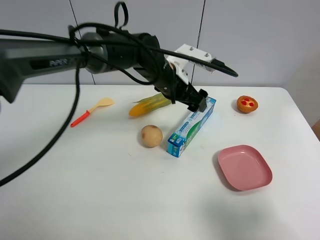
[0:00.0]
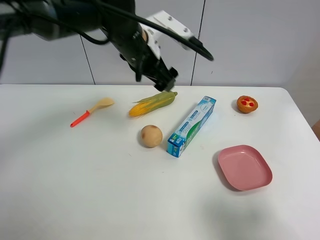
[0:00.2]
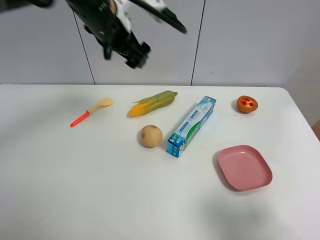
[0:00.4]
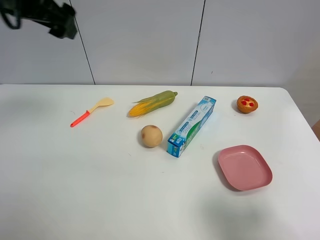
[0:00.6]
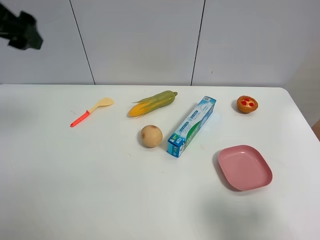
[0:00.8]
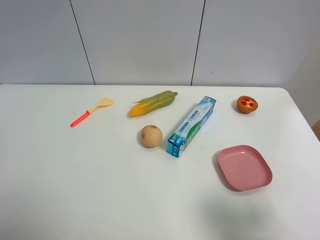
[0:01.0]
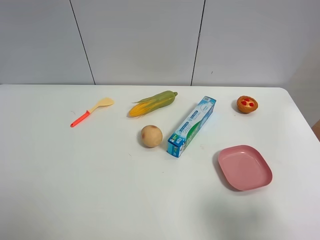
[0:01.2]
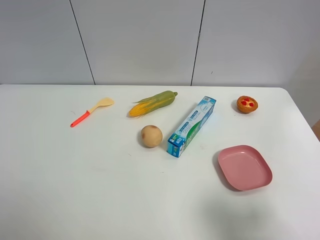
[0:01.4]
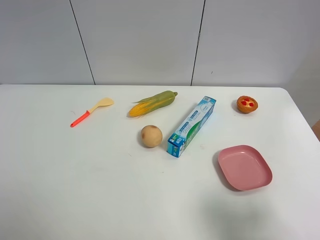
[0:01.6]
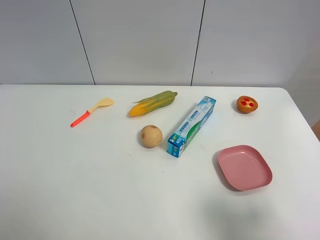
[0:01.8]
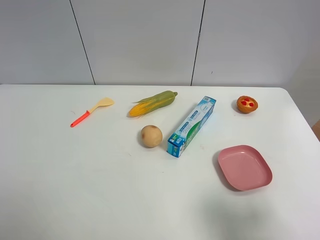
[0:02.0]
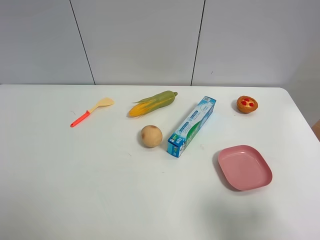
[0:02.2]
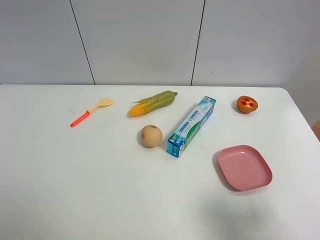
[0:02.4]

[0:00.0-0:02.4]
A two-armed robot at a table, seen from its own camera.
Task of the whole recording: the gripper move the object.
0:00.0 to 0:01.2: The left gripper moves to the left, backward and upward, roughly 50 cm.

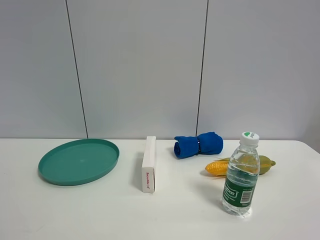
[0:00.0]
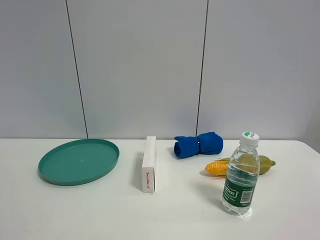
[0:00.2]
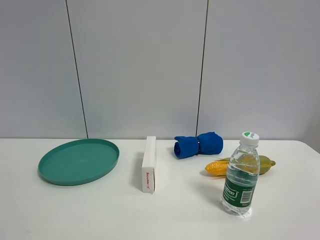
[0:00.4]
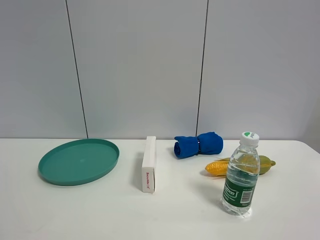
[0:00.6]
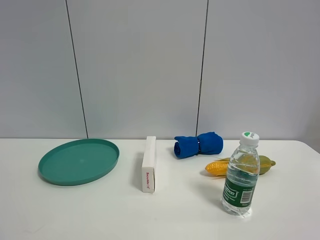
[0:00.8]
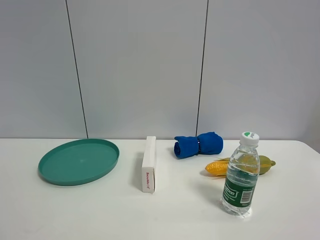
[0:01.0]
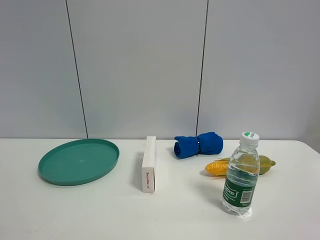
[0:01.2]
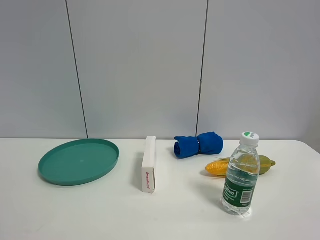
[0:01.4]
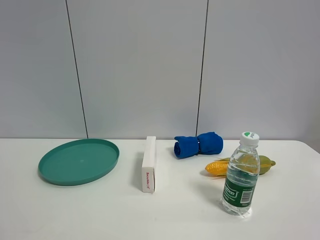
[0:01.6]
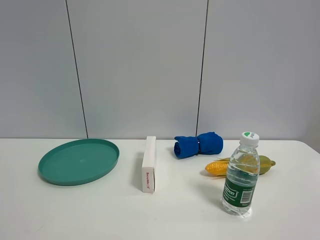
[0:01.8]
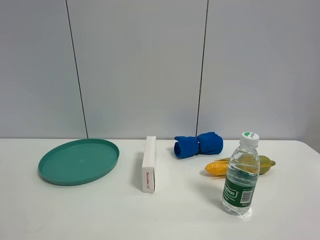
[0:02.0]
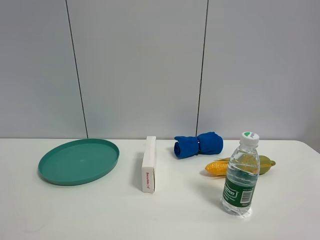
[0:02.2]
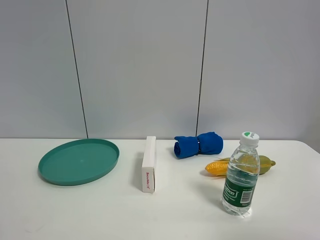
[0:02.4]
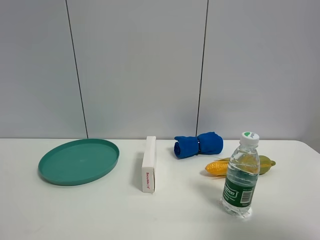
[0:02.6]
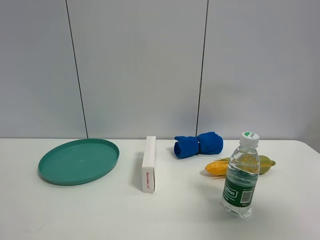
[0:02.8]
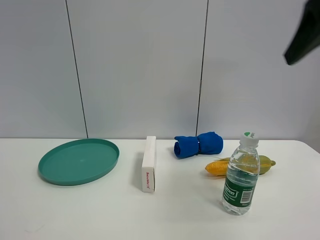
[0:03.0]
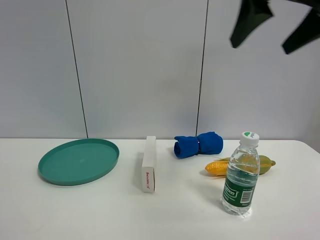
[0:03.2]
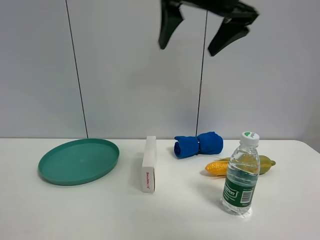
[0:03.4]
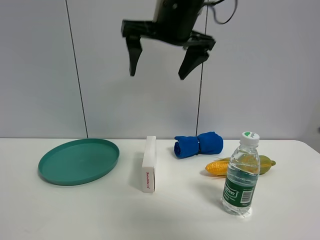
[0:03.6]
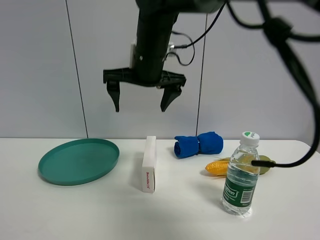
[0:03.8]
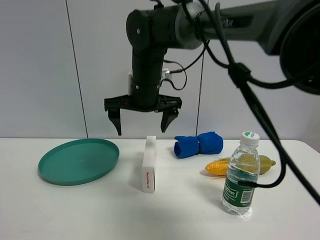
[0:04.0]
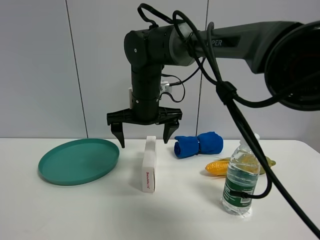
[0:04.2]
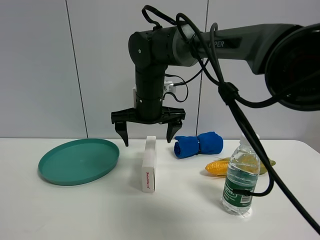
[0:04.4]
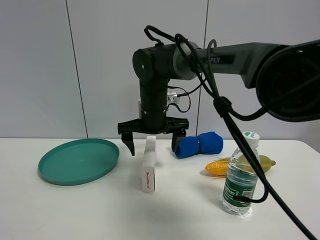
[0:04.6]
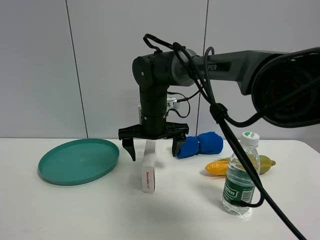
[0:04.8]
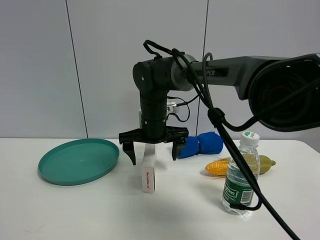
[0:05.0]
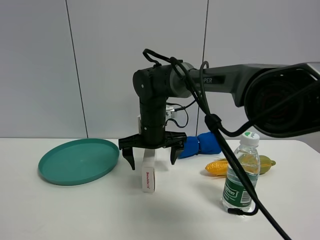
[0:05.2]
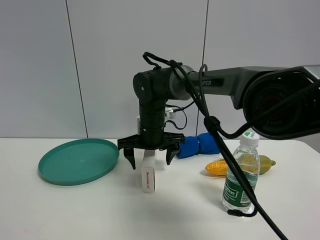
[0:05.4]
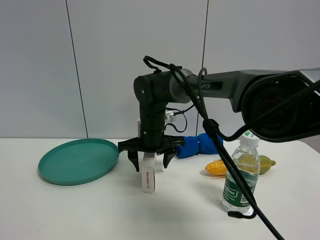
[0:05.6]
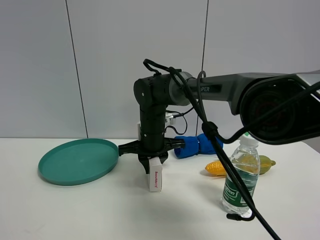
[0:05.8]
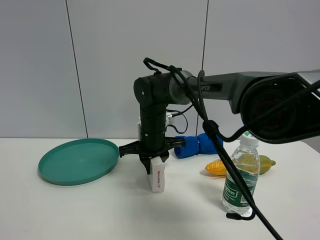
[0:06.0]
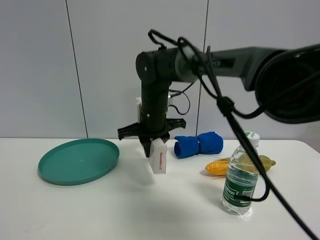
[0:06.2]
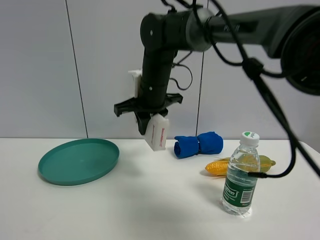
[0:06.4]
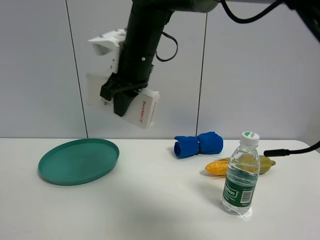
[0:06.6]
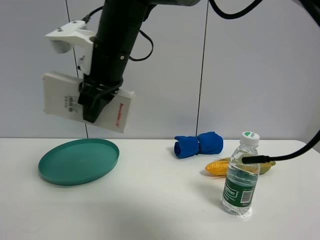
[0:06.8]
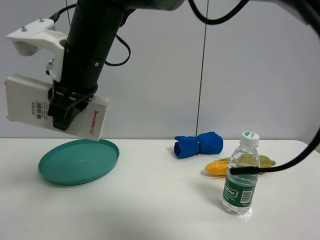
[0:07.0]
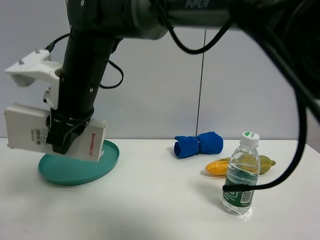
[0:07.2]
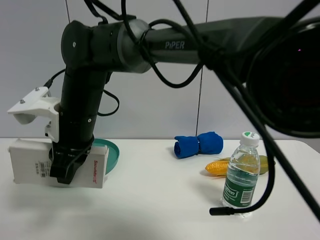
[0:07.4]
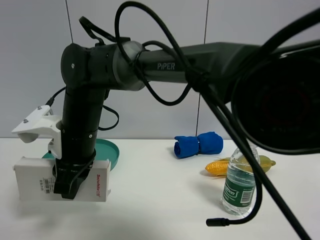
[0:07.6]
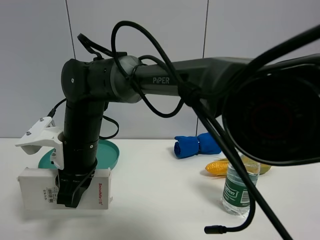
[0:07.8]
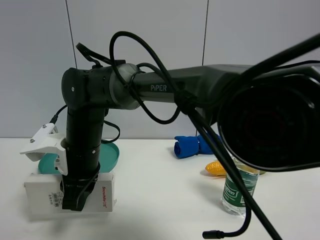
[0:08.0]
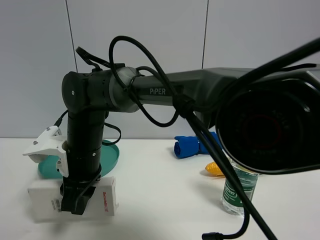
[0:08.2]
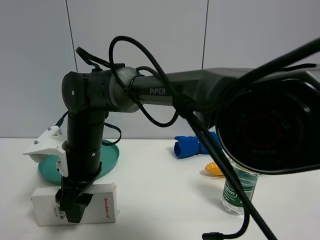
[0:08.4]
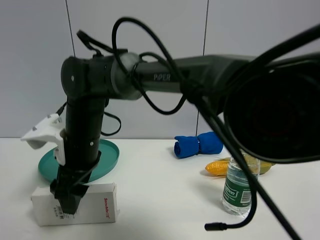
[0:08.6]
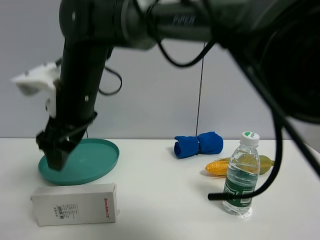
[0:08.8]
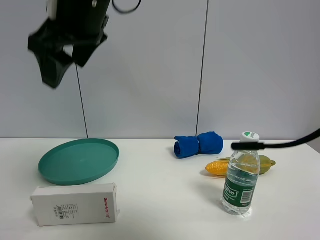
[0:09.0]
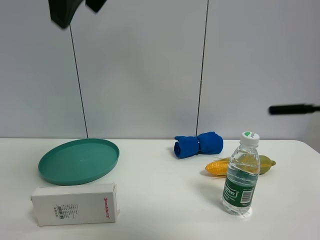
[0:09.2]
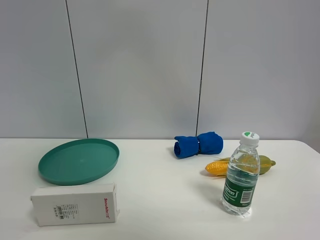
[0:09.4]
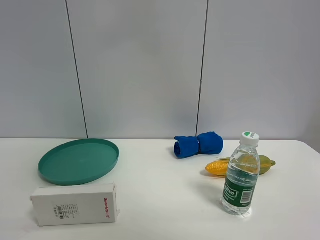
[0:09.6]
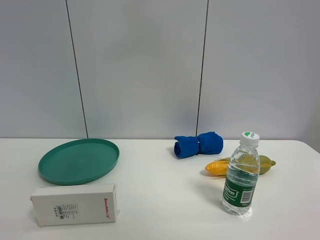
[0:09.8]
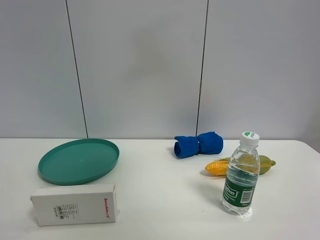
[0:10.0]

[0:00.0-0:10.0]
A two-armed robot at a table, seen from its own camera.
Task of the whole recording: the gripper move the object.
Step, 0:00.0 to 0:05.6: Grasp the USB box with the right gripper.
Step, 0:05.8 to 0:08.6: Place the USB box on the table with the right gripper.
0:00.0 to 0:01.4: Neither gripper changes place.
0:01.4 to 0:02.8: The right gripper travels forward and upward by about 20 cm.
0:02.8 to 0:04.2: The right gripper moves to the left, forward and downward, roughly 40 cm.
0:04.2 to 0:05.8: The right gripper moves downward, about 10 cm, and closes up.
0:05.8 to 0:07.2: The right gripper goes approximately 20 cm backward, upward and to the left.
0:07.2 to 0:08.6: The right gripper travels downward by approximately 5 cm, and opens its fingers.
0:08.6 to 0:10.0: The right gripper travels upward and to the right by approximately 35 cm.

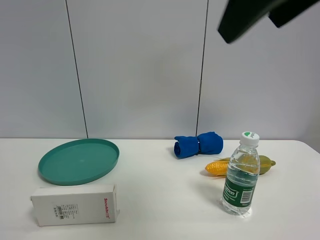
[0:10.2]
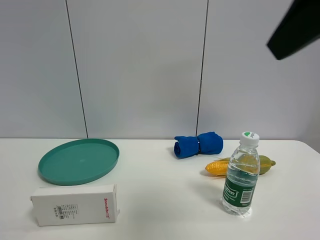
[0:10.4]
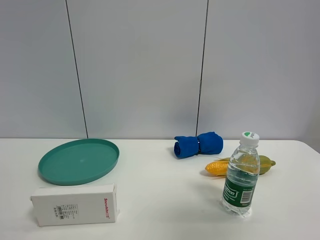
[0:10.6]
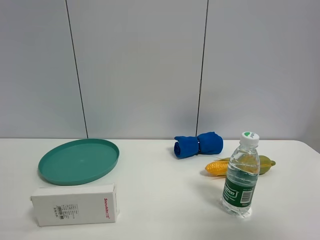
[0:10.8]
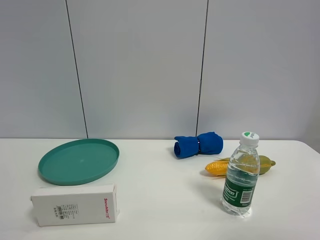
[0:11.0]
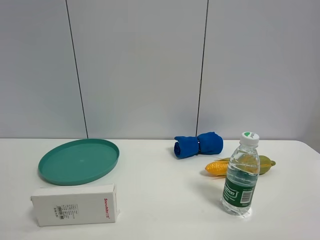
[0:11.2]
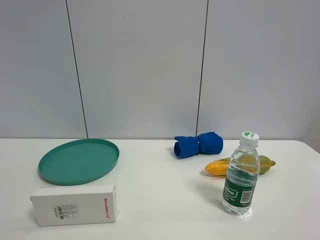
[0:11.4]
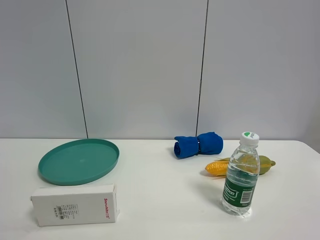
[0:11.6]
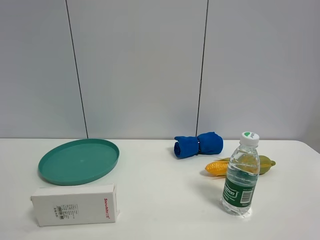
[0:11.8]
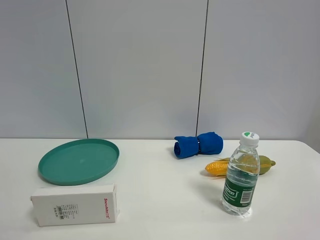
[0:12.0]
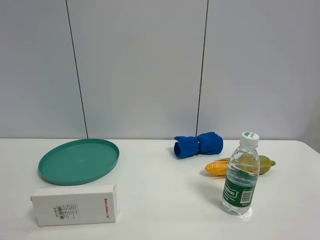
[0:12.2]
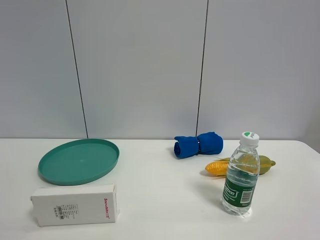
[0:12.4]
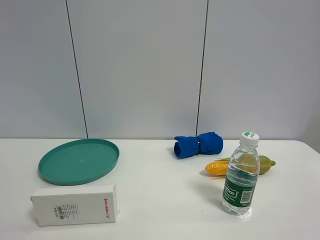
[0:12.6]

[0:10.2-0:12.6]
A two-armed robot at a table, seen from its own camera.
Task of the whole recording: the gripper move the object.
0:10.2 to 0:11.4: The right gripper is displaced backward, to the right and downward by roughly 25 cm.
0:11.4 to 0:12.6: The two grippers keep their place.

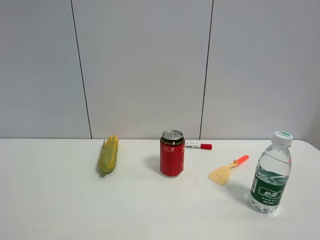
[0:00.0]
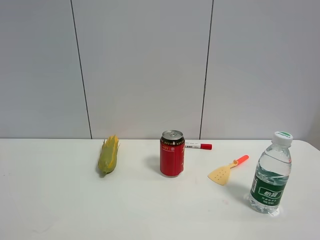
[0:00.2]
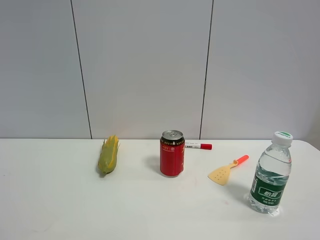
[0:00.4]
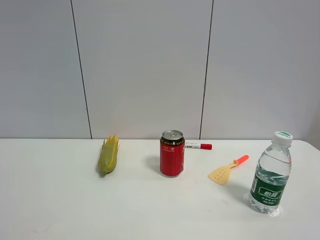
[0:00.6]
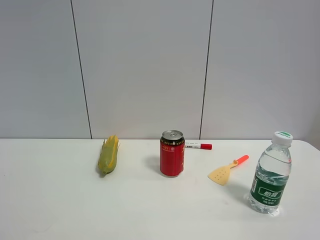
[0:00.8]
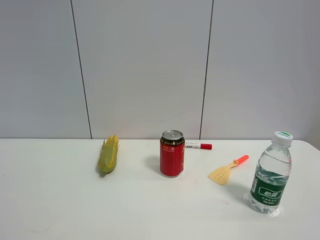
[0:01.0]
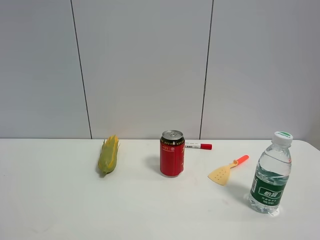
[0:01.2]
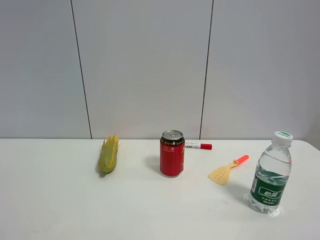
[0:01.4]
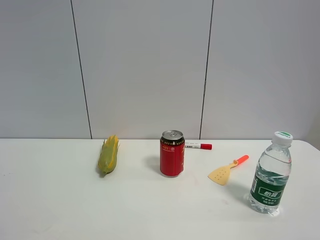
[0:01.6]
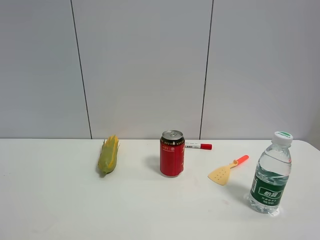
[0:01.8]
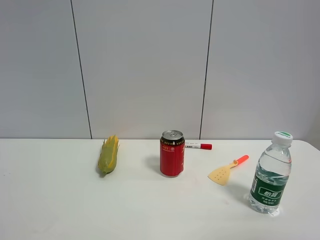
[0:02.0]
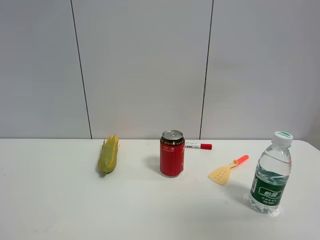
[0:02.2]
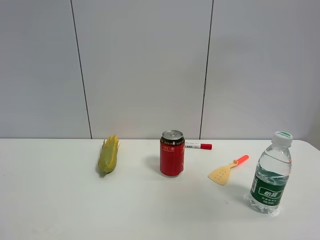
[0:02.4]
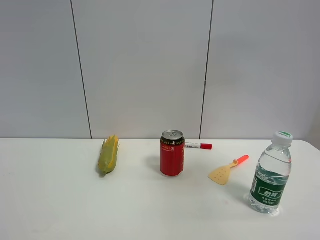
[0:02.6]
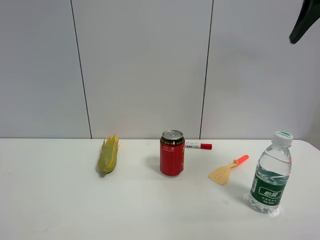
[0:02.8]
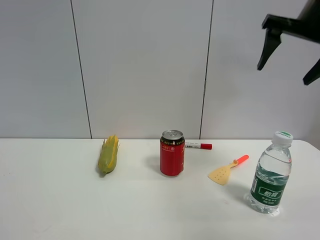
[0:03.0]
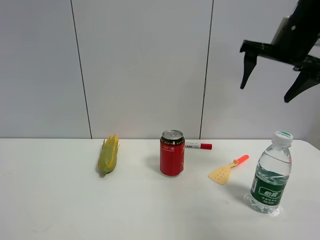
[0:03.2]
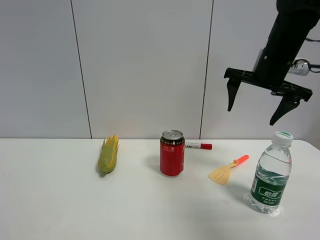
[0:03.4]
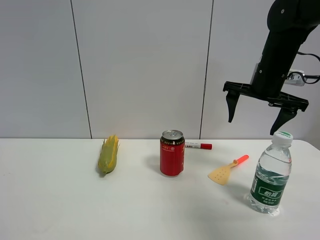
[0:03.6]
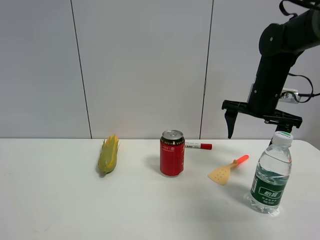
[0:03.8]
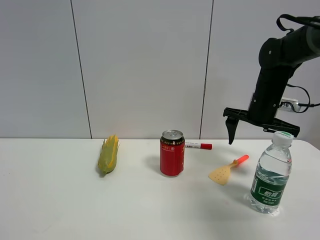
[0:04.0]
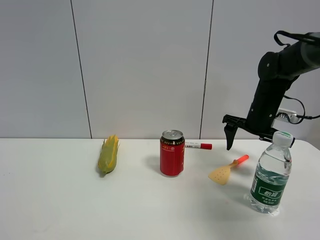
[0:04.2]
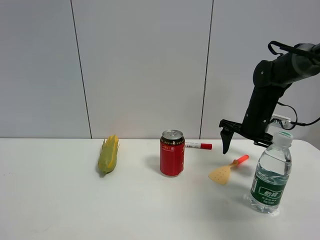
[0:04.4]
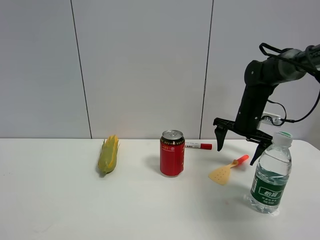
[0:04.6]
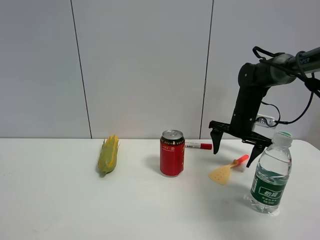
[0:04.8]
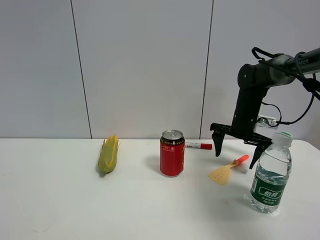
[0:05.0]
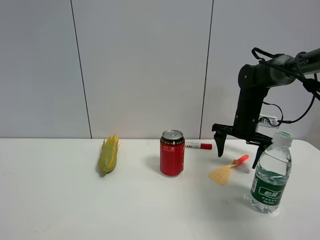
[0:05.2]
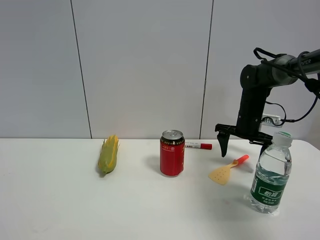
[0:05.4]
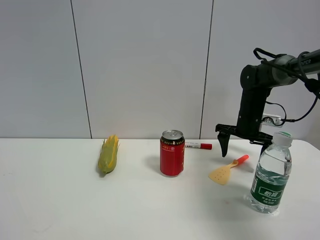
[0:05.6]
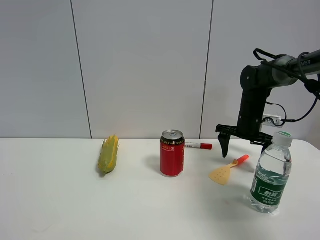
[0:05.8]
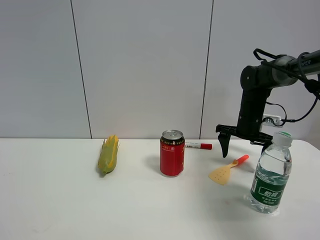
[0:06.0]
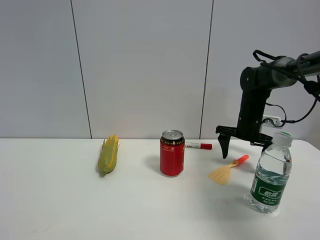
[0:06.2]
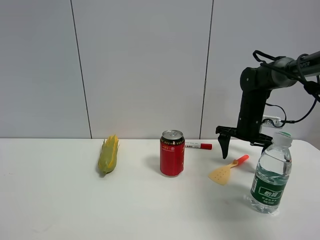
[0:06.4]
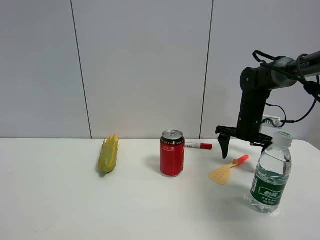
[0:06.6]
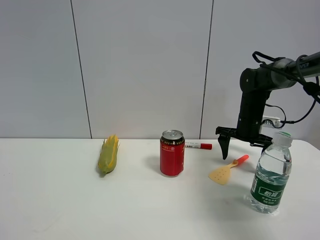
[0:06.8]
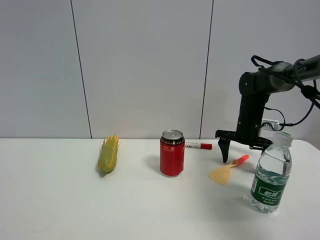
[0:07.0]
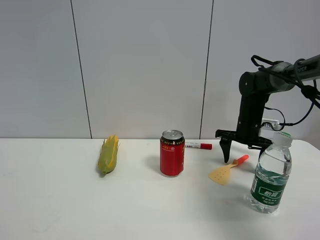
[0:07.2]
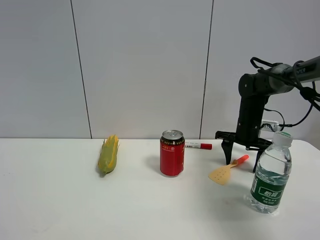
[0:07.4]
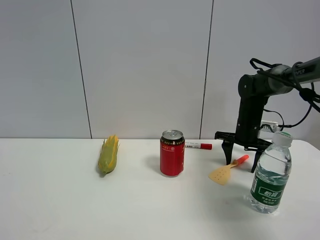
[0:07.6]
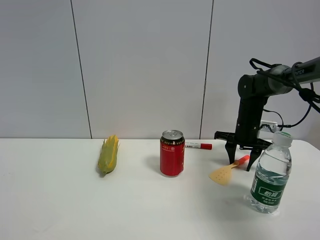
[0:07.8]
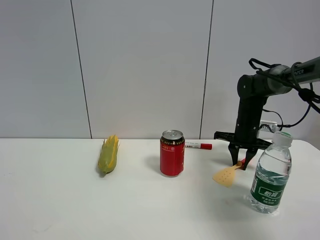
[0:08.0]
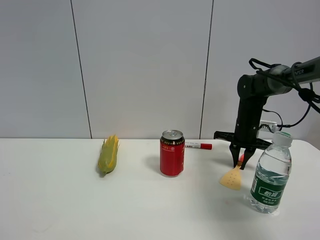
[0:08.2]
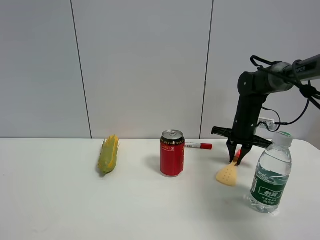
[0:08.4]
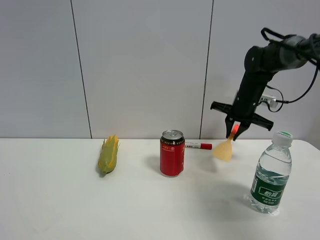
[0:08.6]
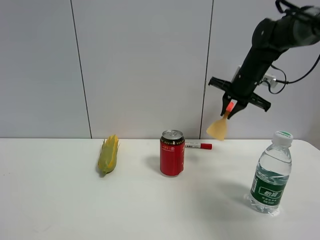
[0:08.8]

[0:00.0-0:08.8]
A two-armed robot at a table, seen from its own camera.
Task of the whole recording: the gripper move the object.
Step, 0:00.0 to 0:08.0: Grasp the cooking shovel with the right gripper.
0:00.0 to 0:01.4: Both grippers stay put.
0:01.4 to 0:03.0: The right gripper travels forward by about 35 cm.
0:03.0 to 0:04.4: The right gripper is displaced downward and forward by some 25 cm.
0:04.4 to 0:07.4: The grippers move only a little.
0:07.4 to 0:08.8: The right gripper moves upward, approximately 15 cm, and closes its fingers.
